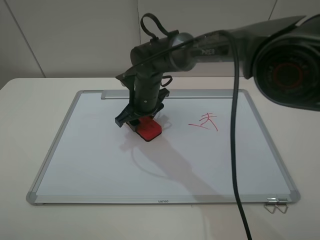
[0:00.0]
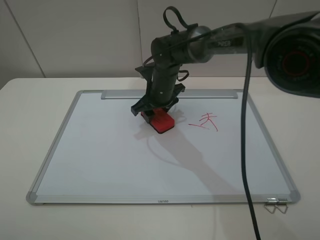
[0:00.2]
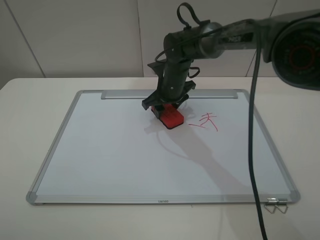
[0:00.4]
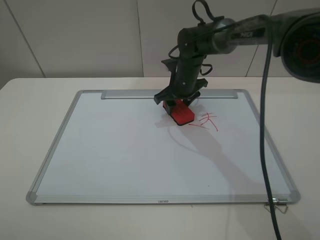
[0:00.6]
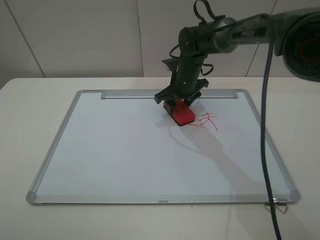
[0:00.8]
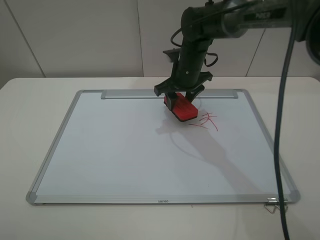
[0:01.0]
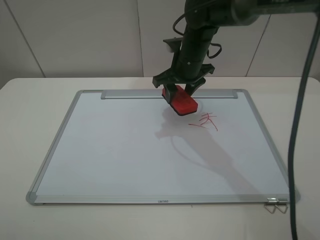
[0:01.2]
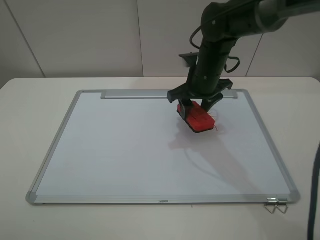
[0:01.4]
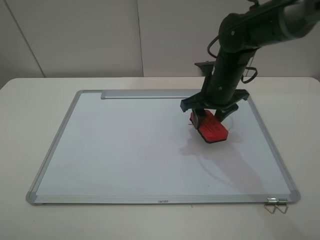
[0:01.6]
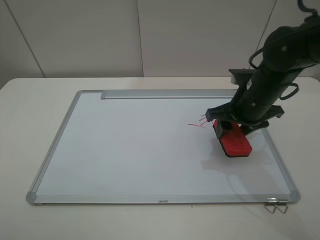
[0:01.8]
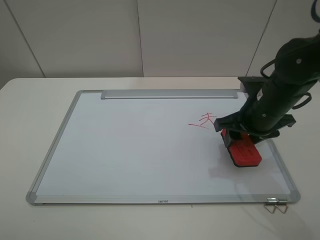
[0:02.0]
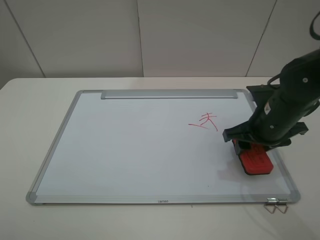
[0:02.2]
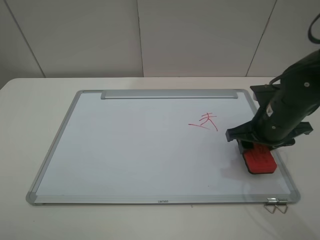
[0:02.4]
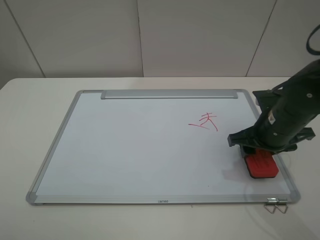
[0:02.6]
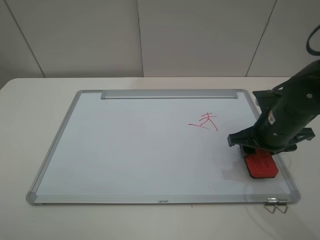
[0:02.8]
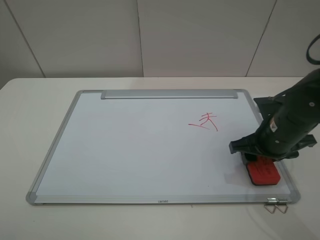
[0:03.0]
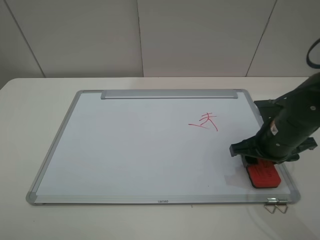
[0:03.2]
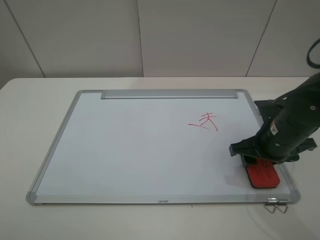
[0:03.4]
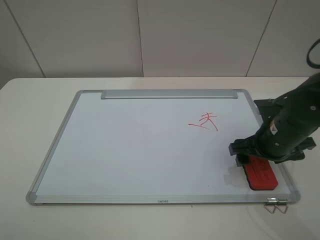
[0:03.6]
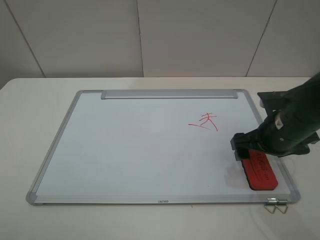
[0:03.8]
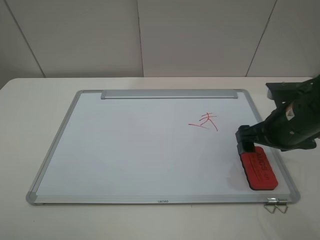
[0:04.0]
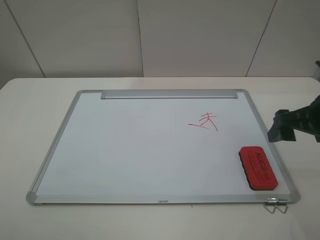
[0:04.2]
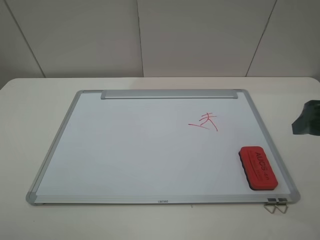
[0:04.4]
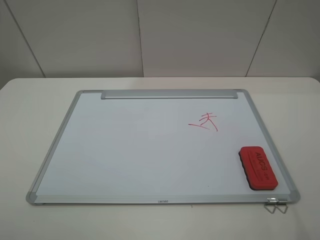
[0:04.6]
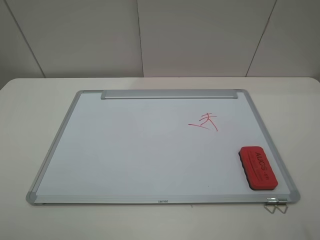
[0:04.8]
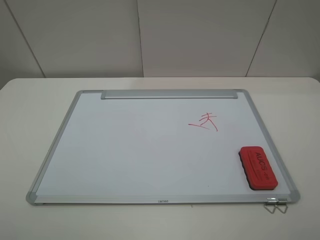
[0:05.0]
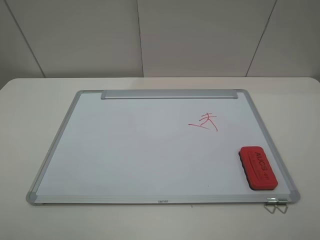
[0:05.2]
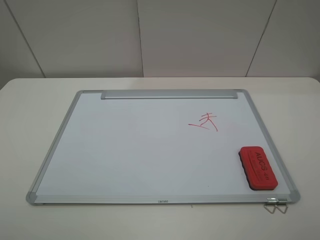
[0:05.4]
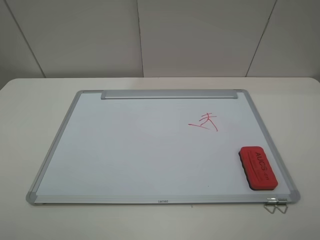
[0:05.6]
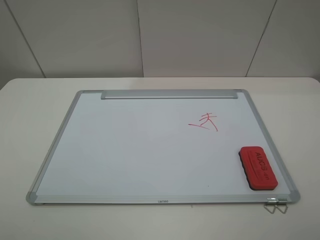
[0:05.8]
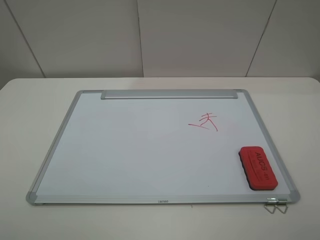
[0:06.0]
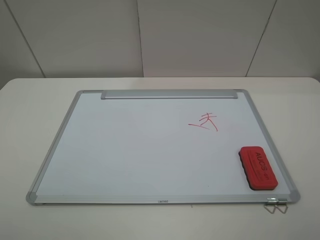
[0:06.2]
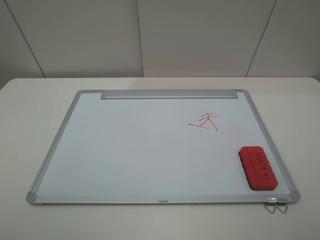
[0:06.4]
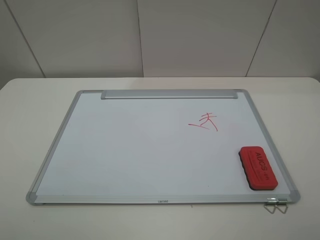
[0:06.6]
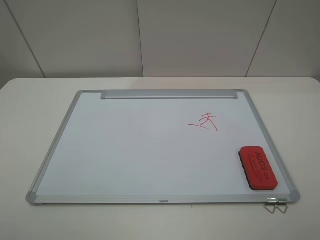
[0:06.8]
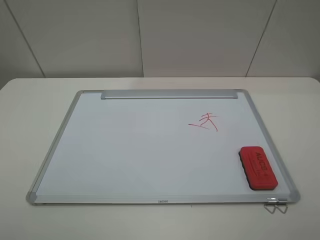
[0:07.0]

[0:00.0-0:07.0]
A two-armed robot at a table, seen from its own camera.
Step, 0:01.2 to 0:03.8: Place the eraser with the right gripper.
0:00.0 to 0:01.4: The right gripper shifts approximately 15 cm to the right and upward.
0:01.4 to 0:02.8: The right gripper travels backward and to the right by roughly 15 cm.
0:02.8 to 0:04.2: The right gripper heads upward, to the right and backward, covering some 10 cm, and opens up.
0:04.2 to 0:05.6: The right gripper goes approximately 20 cm backward.
0:05.6 to 0:07.0: Neither gripper changes place.
